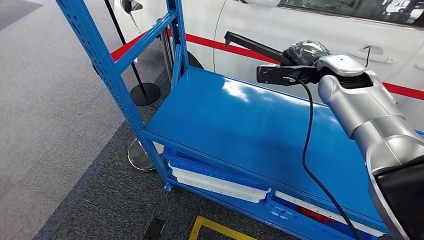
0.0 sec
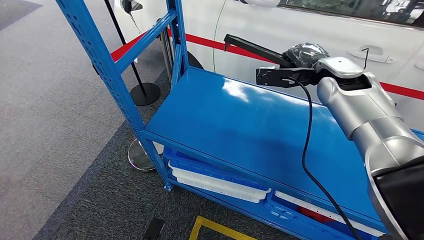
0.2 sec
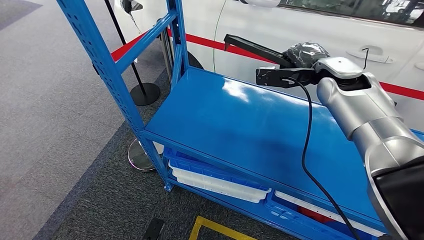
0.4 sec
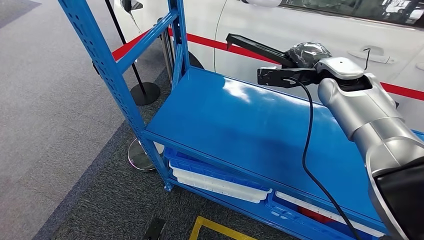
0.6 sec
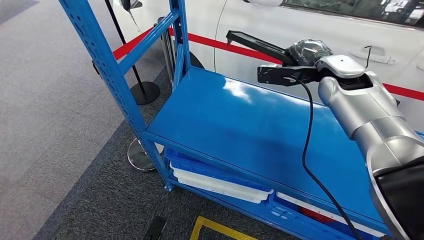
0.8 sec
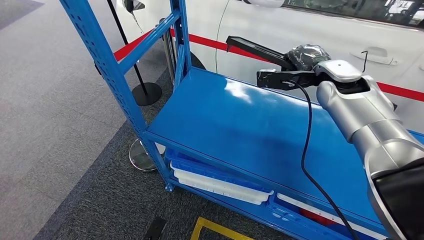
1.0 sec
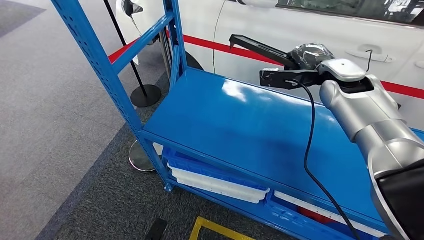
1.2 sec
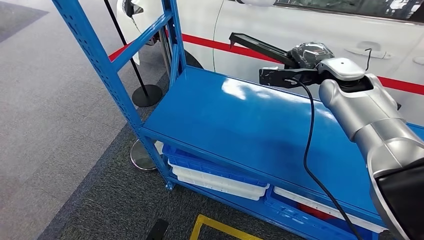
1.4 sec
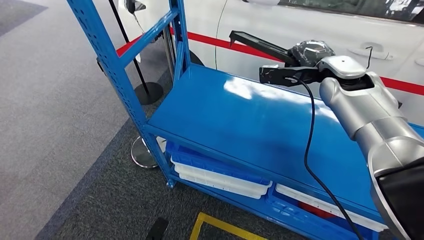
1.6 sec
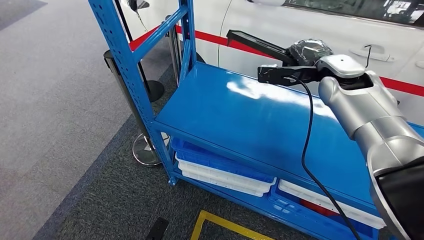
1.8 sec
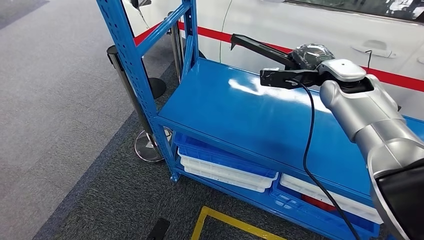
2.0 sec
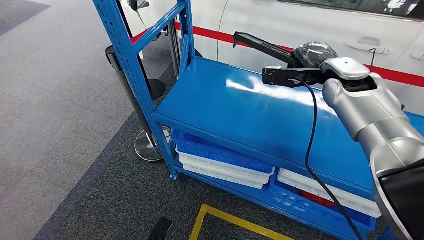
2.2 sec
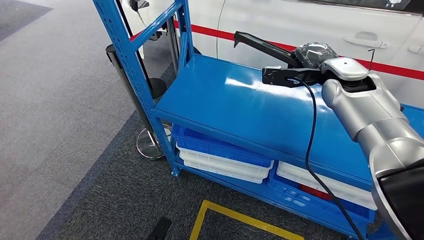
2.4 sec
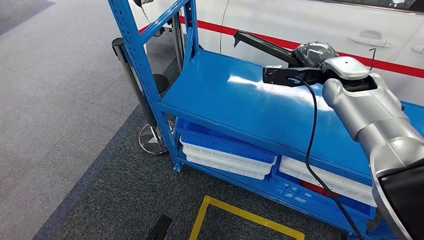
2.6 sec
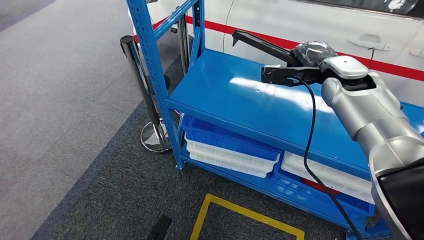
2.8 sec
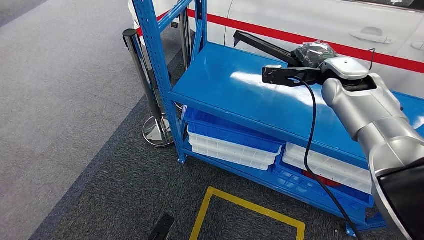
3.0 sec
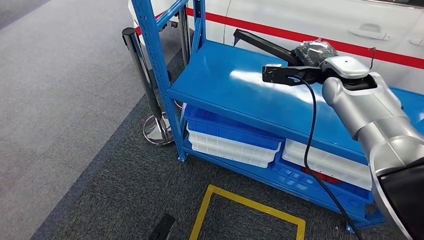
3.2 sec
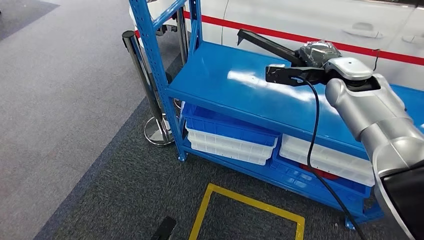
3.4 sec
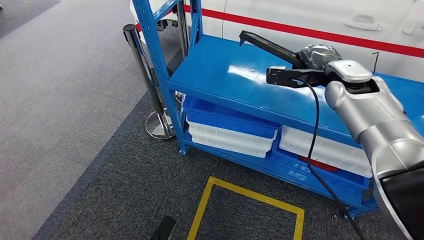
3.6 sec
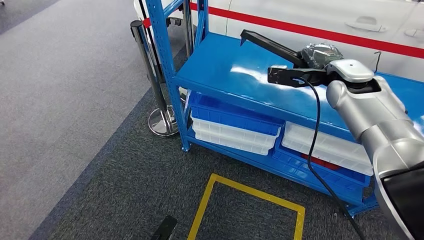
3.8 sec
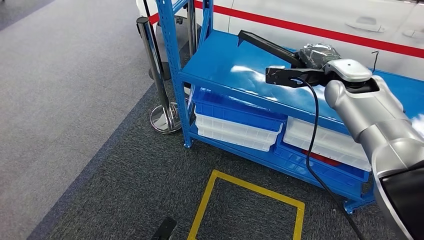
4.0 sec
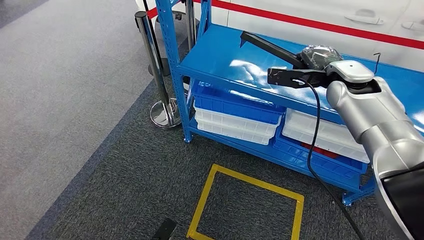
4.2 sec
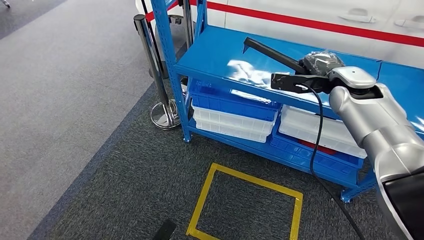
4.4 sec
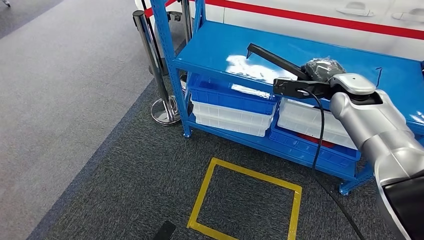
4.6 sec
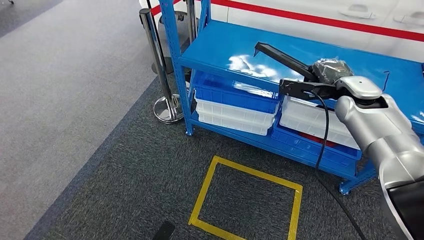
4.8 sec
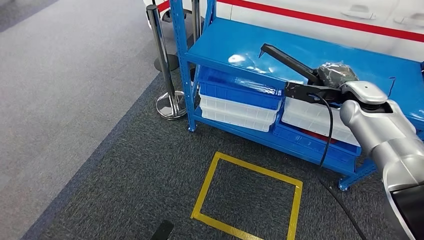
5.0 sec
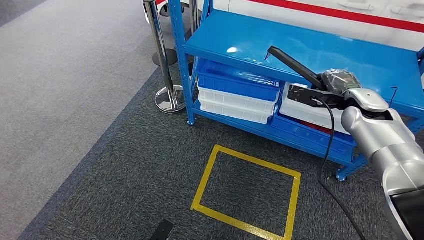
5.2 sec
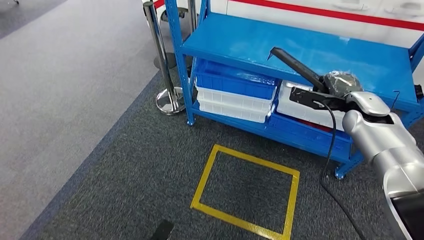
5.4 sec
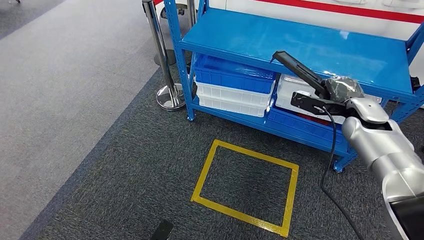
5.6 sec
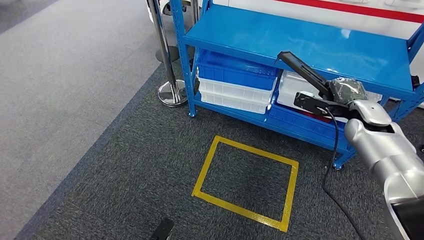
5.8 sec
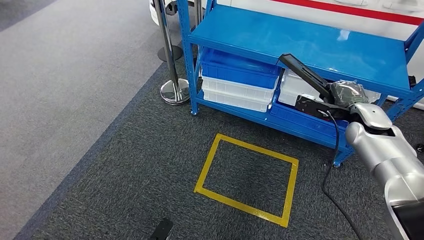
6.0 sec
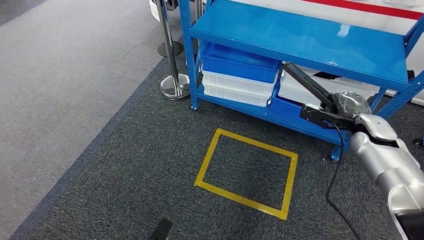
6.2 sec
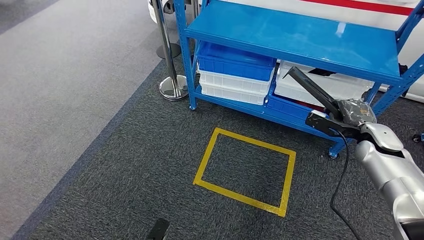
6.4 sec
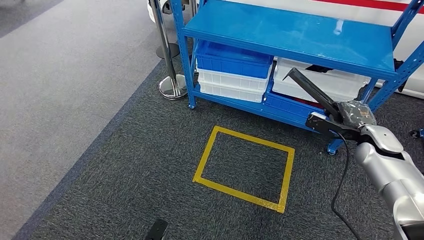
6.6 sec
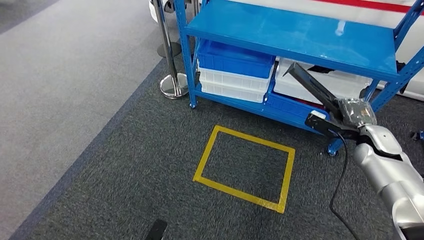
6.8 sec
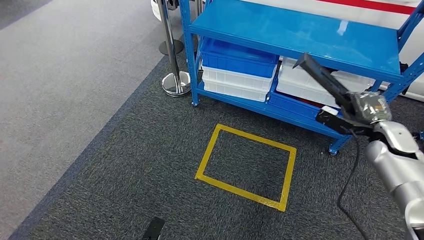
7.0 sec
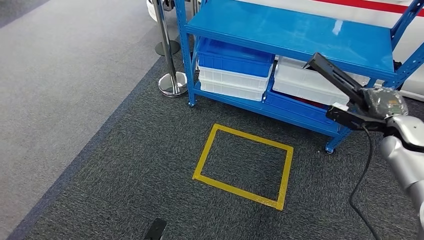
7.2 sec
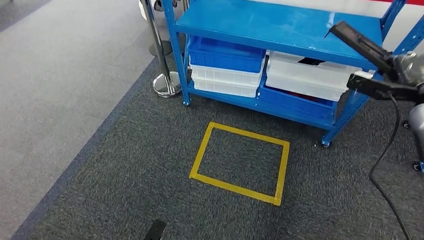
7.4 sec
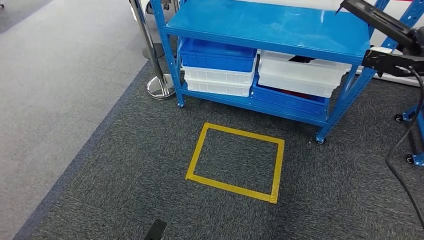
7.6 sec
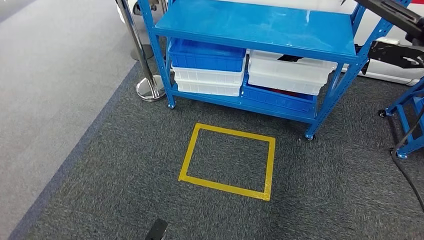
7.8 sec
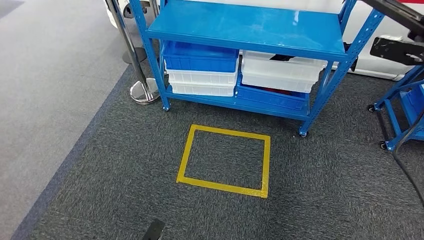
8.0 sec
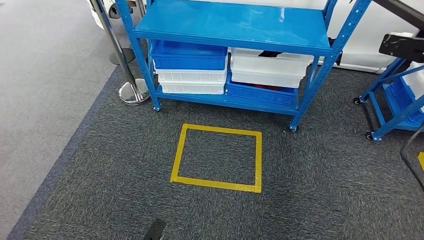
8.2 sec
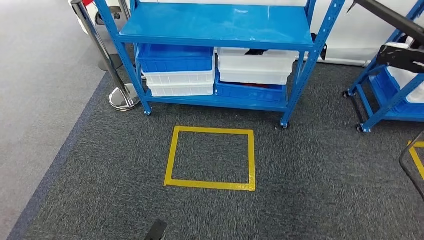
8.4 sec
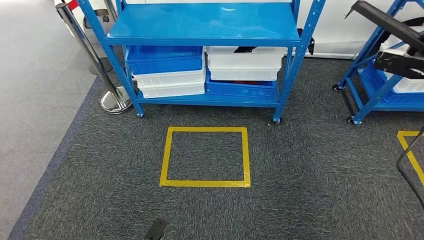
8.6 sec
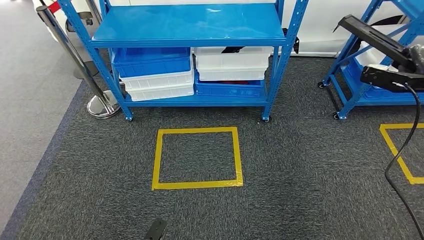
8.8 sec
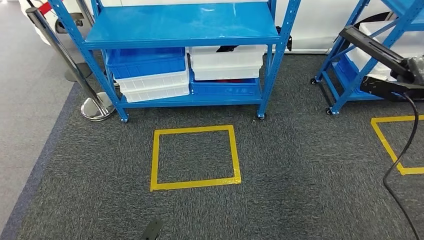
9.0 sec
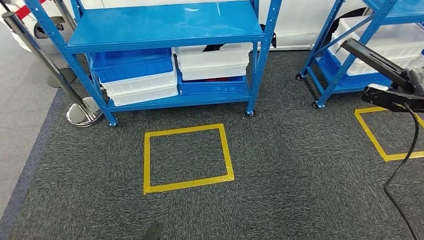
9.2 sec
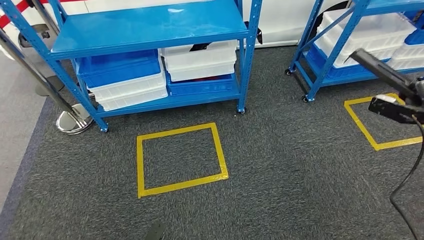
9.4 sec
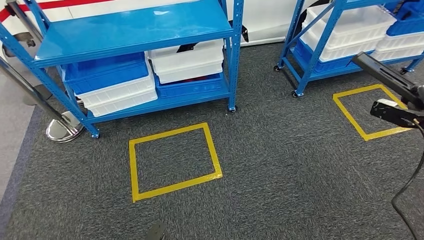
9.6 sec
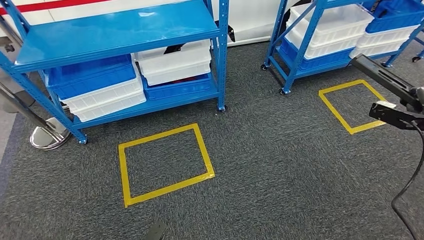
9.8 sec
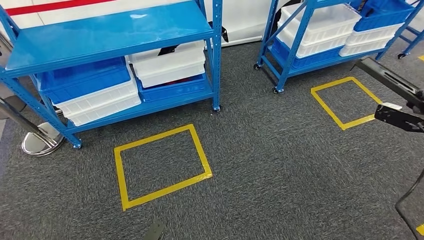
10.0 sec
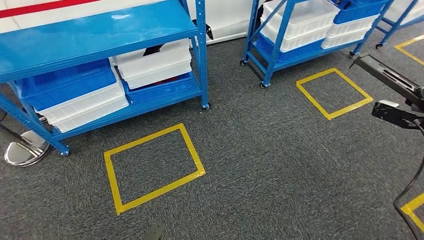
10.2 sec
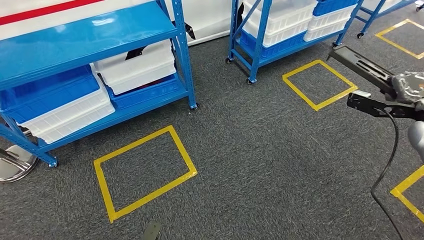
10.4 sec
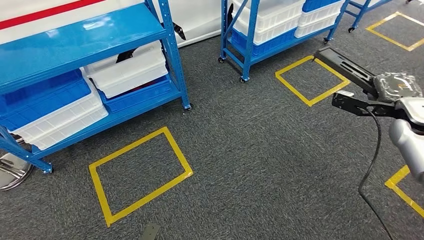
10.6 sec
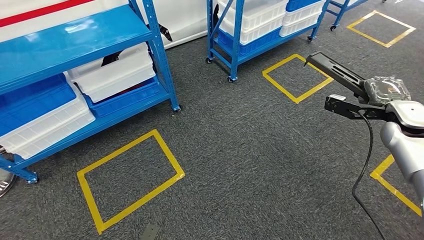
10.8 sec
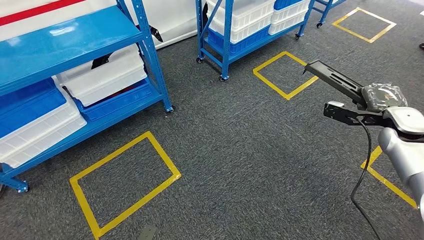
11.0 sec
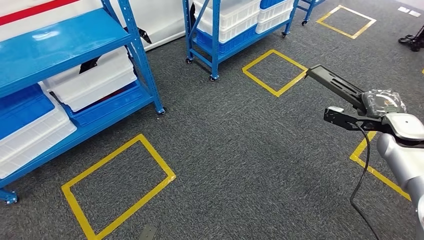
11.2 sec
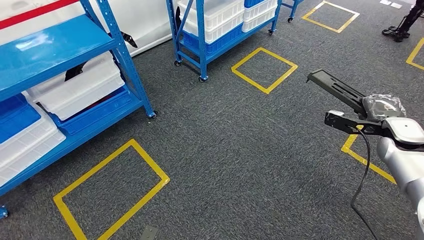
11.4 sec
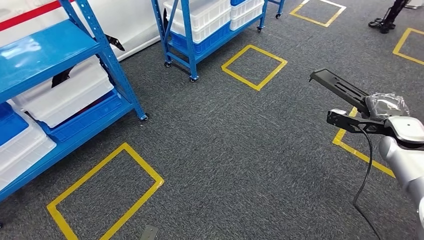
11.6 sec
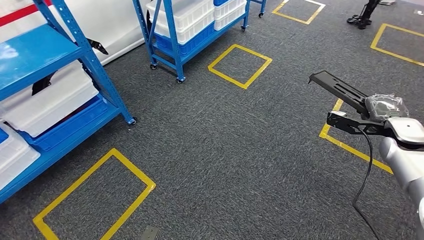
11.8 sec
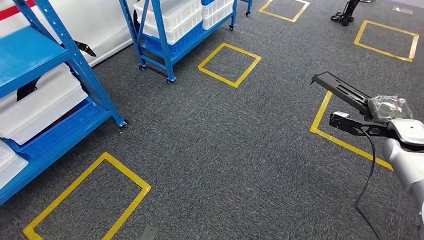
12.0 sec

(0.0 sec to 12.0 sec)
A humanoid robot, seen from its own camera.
0.0 sec - 1.6 sec: There are only small adjustments of the hands.

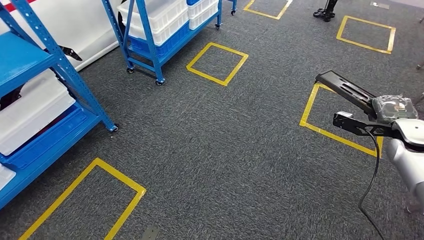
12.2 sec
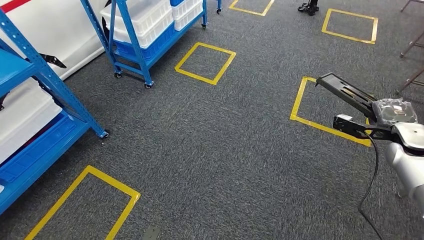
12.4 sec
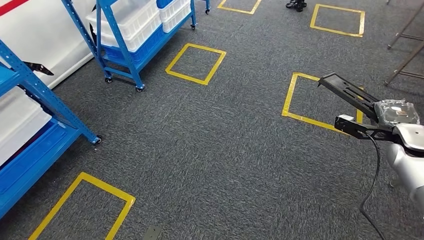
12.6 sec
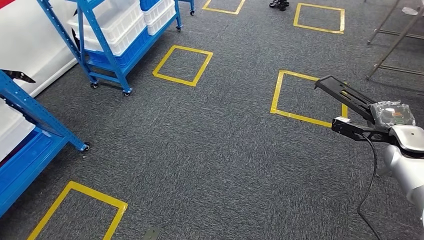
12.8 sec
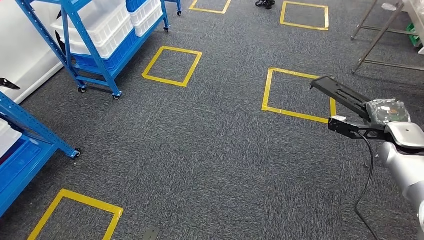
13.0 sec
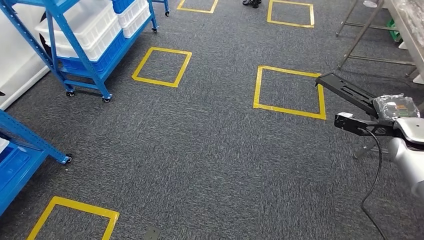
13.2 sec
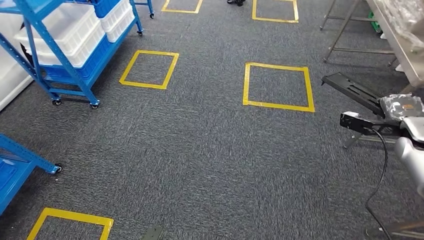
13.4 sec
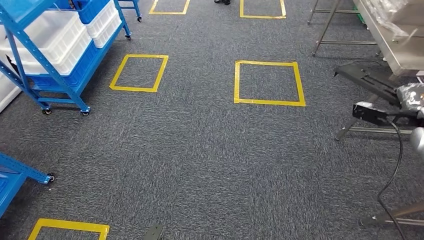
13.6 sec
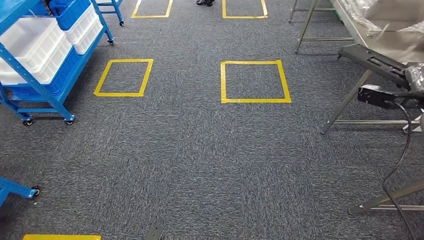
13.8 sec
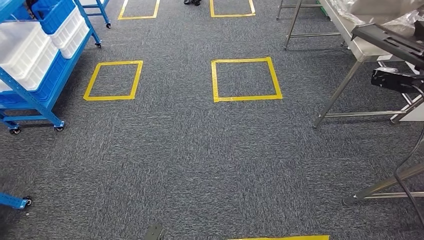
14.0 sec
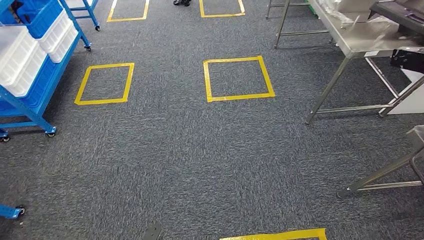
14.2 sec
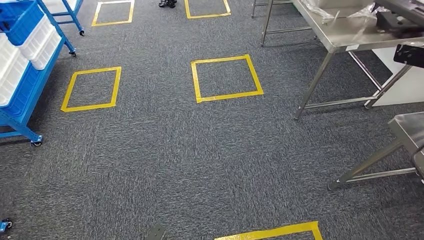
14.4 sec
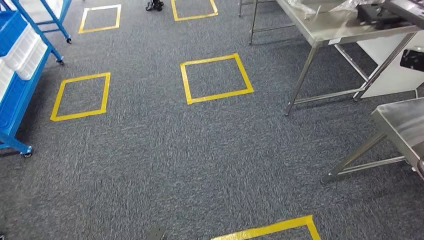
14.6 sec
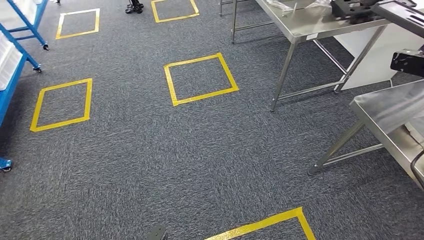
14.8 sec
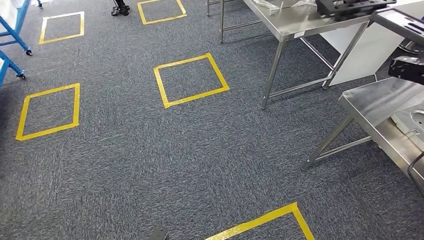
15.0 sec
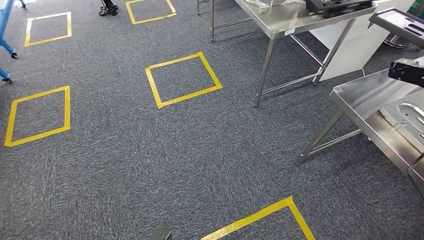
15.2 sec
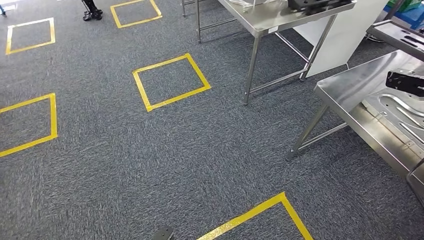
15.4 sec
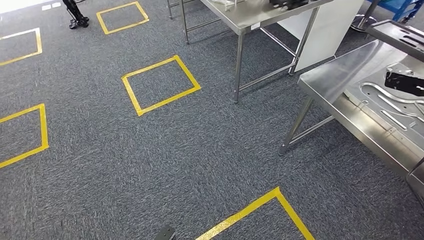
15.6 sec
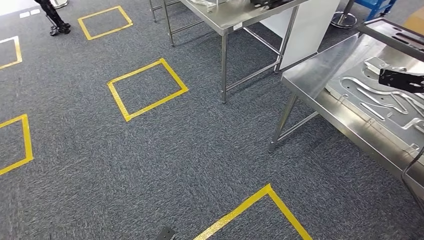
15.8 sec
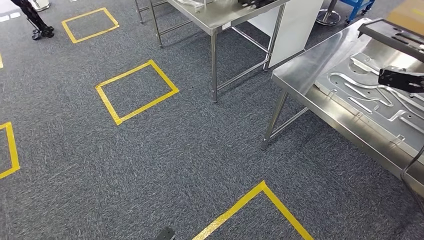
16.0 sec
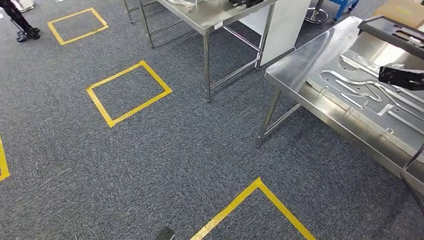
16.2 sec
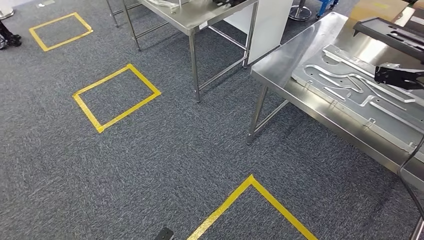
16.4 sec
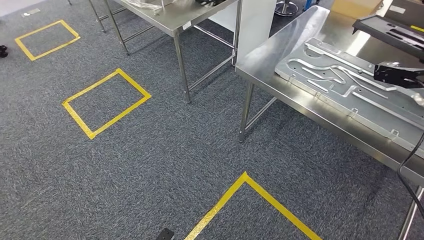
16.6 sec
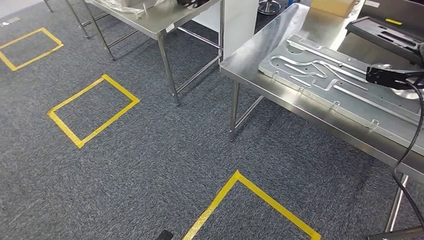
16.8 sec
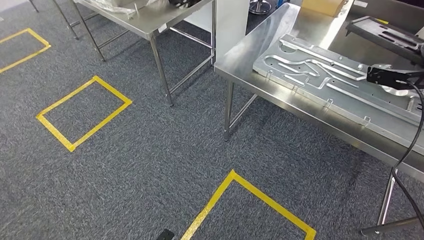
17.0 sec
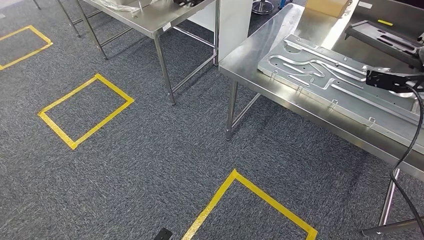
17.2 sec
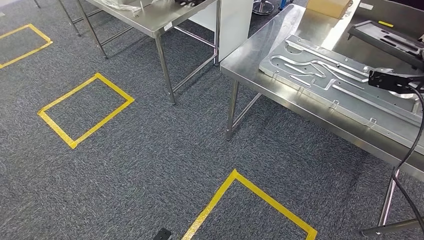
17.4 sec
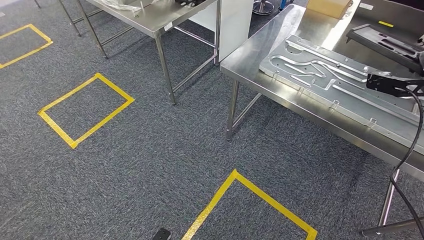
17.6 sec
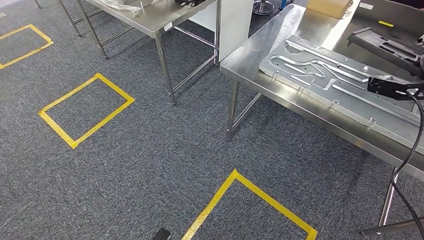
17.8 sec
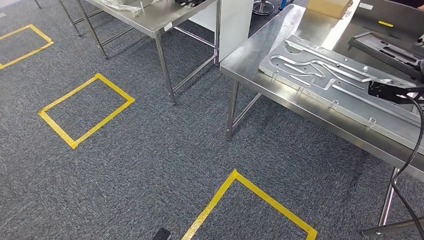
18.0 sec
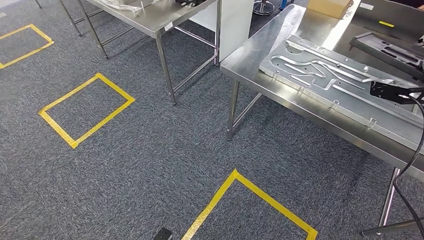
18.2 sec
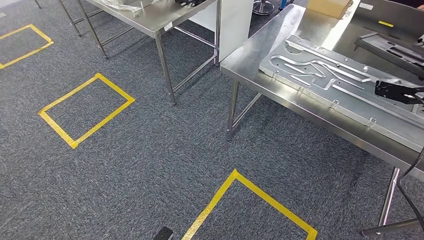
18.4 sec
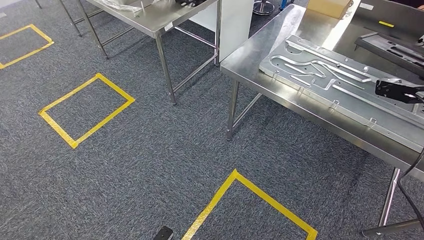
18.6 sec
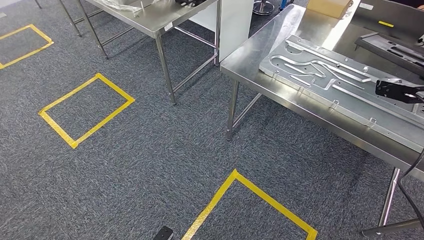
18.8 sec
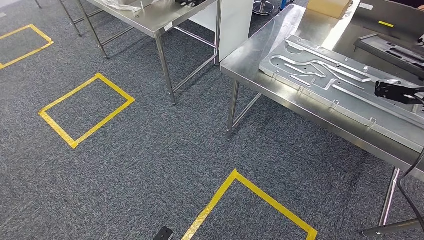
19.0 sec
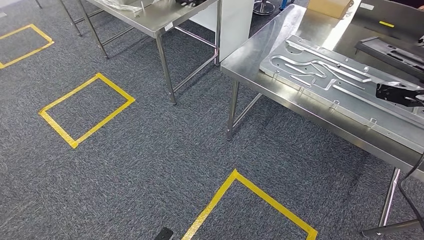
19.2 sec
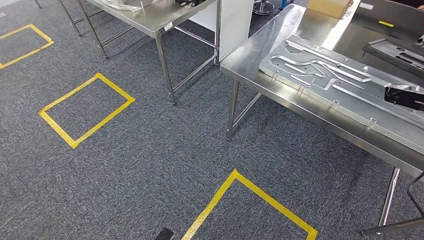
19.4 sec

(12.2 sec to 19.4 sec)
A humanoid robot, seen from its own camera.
Step, 12.2 sec - 16.8 sec: Move the large material to the workbench.
18.0 sec - 19.4 sec: There are only small adjustments of the hands.
